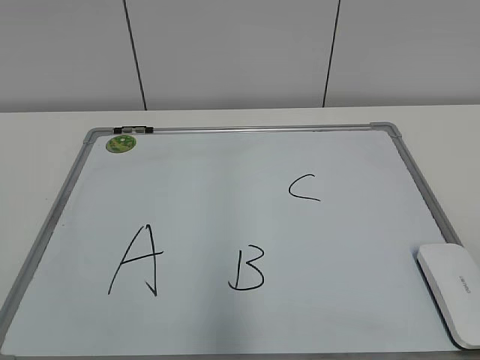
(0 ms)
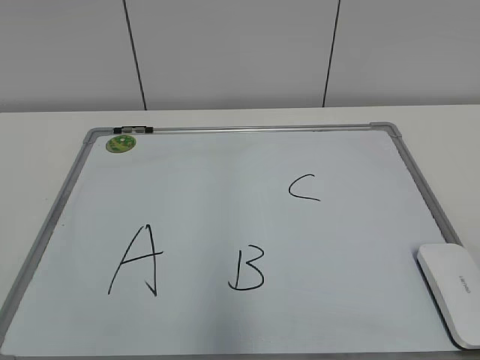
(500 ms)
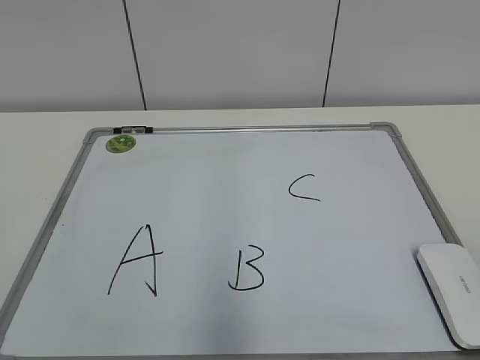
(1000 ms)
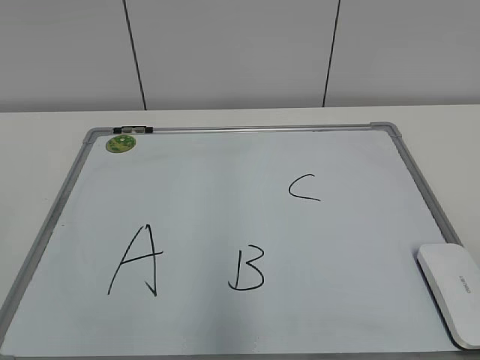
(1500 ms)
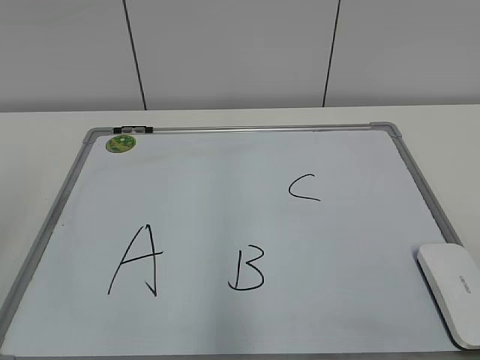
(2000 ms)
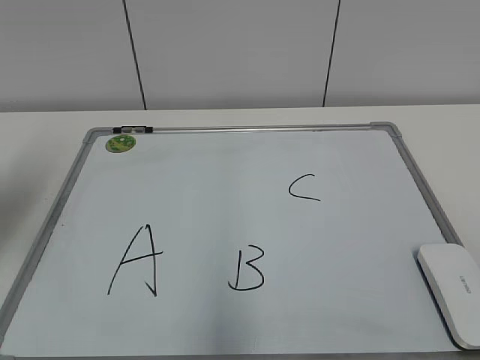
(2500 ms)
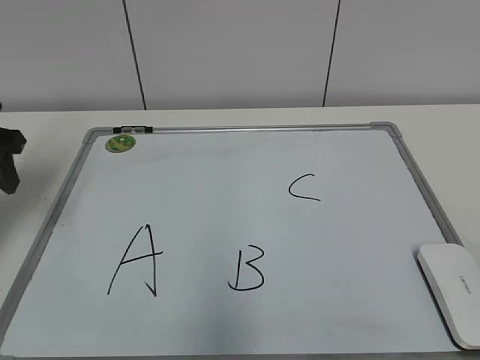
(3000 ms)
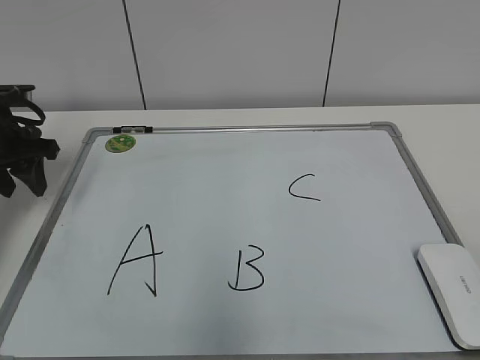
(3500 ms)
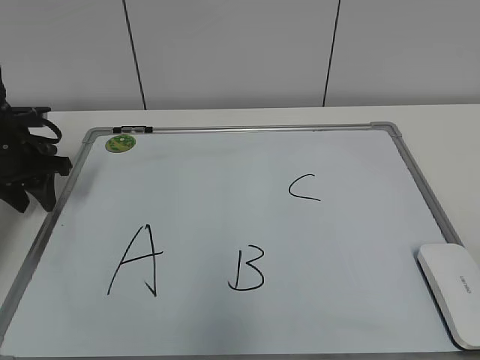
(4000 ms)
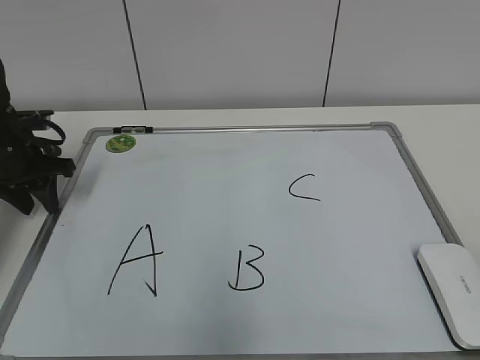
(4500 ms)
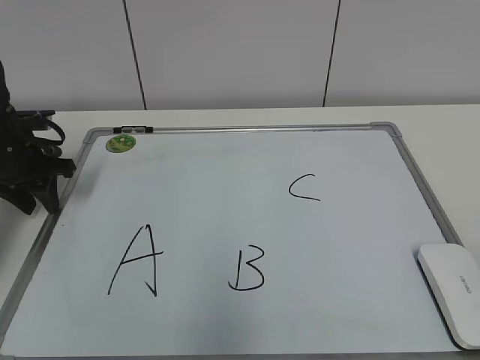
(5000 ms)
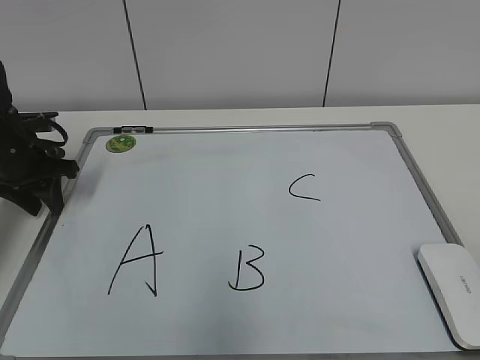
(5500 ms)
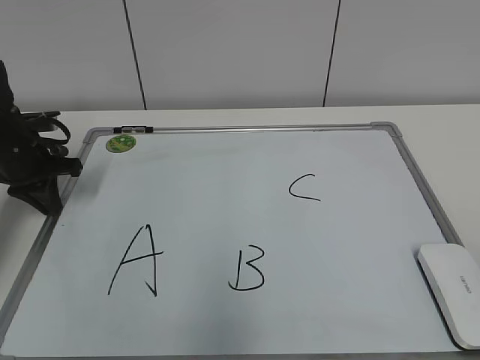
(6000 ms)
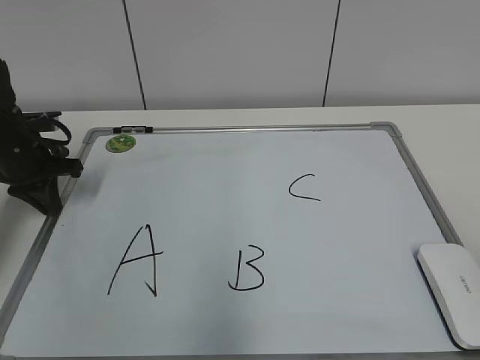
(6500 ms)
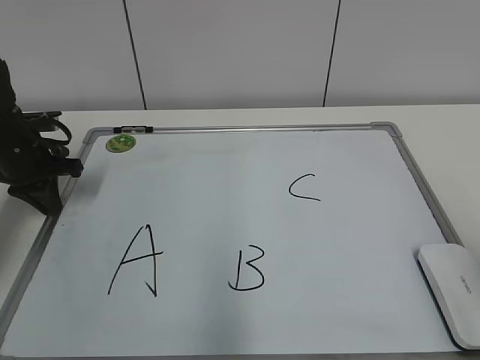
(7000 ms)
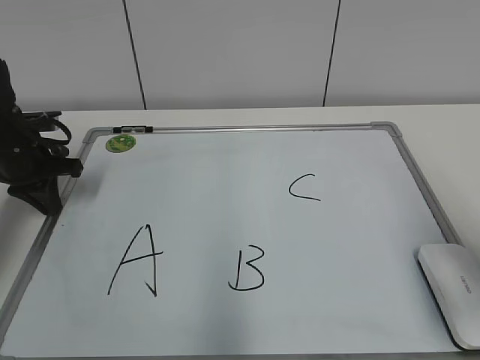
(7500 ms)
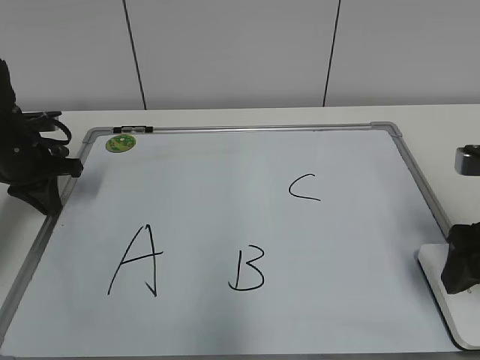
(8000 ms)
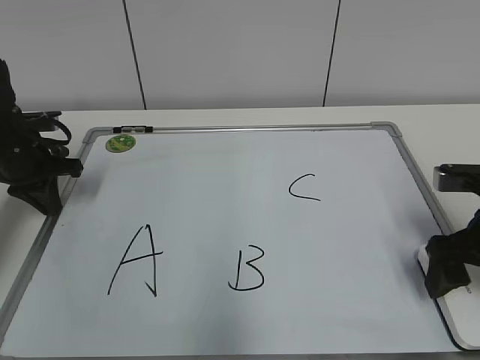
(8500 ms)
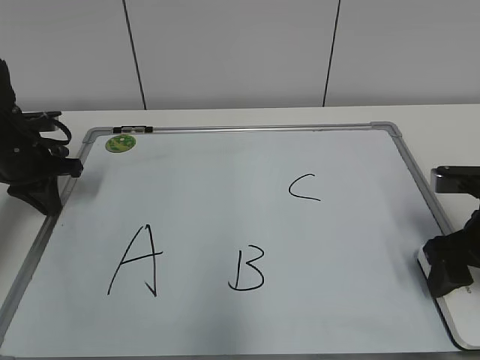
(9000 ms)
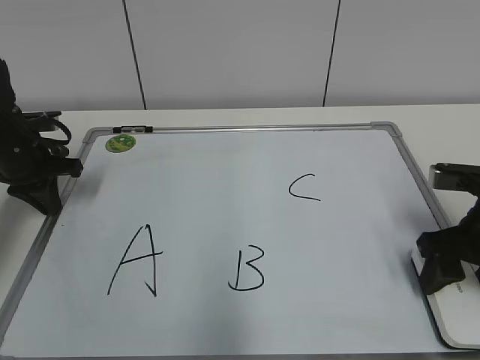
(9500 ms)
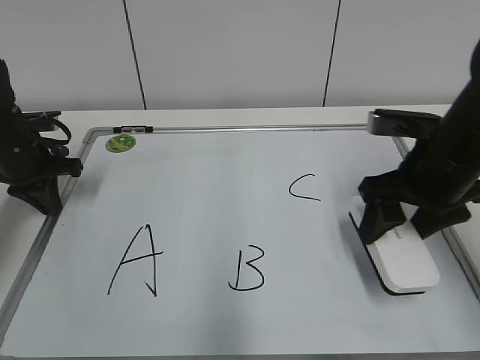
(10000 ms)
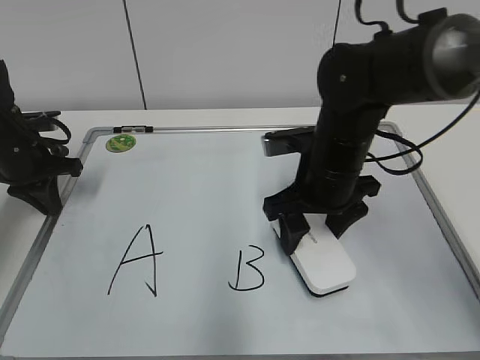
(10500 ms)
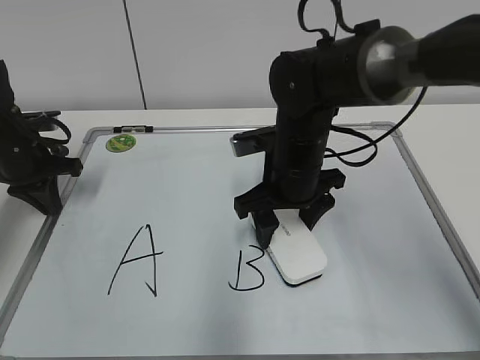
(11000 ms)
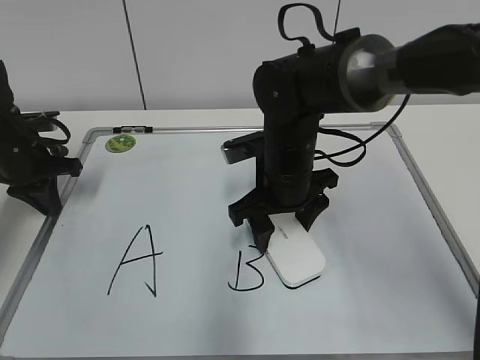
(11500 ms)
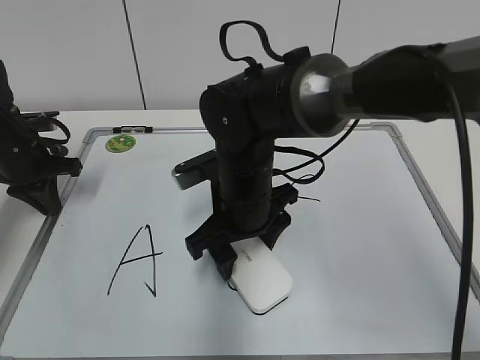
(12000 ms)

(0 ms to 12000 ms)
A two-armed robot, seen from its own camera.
Task of the whole recording: pick up the eraser on the blackboard and erase the letter "B".
Step, 0 ms - 5500 ms: Hold the drawing board steady with your left hand.
Step, 6000 ms - 9000 ms: Grab the eraser with your right hand.
2000 ms - 4000 ms: The left gripper travels forward and downward by some 35 cm.
4000 ms - 6000 ms: The left gripper closes its fingers.
6000 ms - 8000 ms: The right gripper shifts roughly 25 cm forward, and opens its fingers.
8000 ms - 10000 ms: The right gripper travels forward and to the left by roughly 10 cm, and closes.
10000 ms - 12000 ms: The right gripper is displaced to the left by some 20 cm.

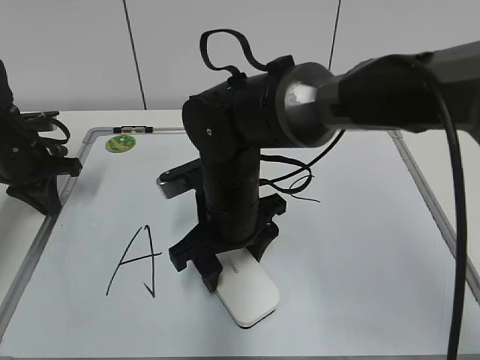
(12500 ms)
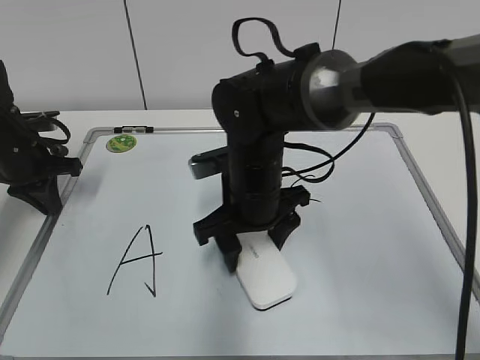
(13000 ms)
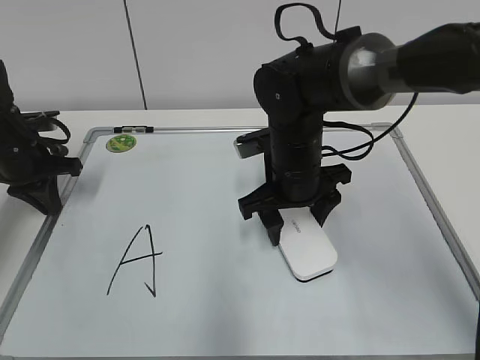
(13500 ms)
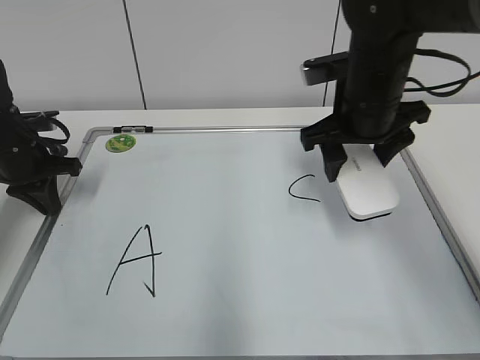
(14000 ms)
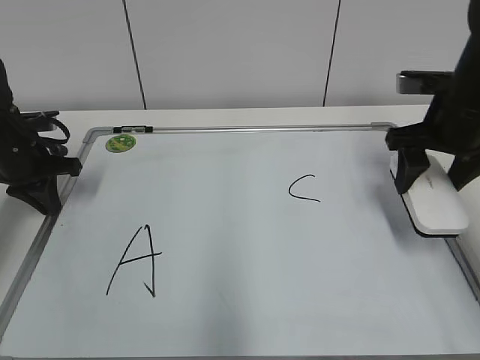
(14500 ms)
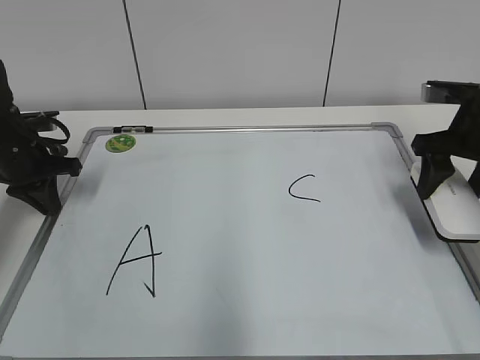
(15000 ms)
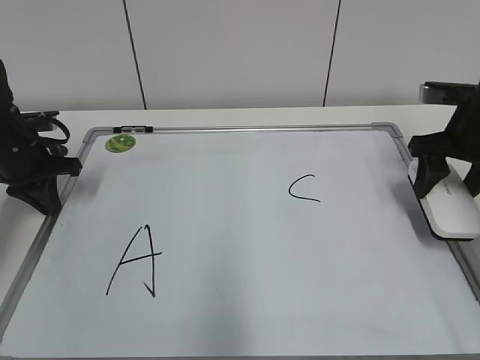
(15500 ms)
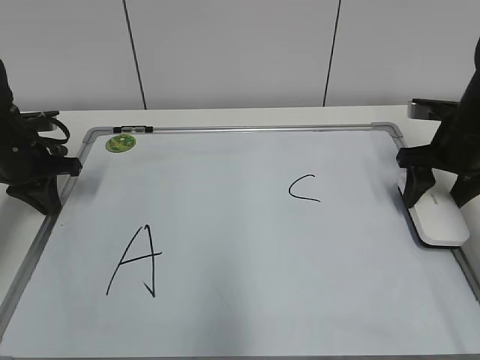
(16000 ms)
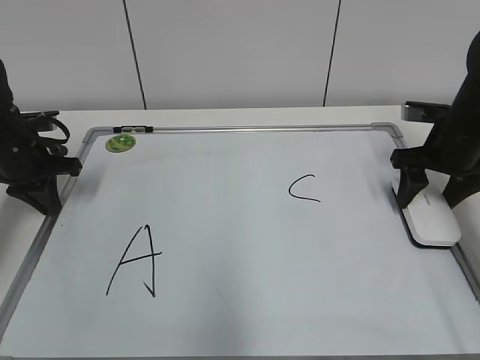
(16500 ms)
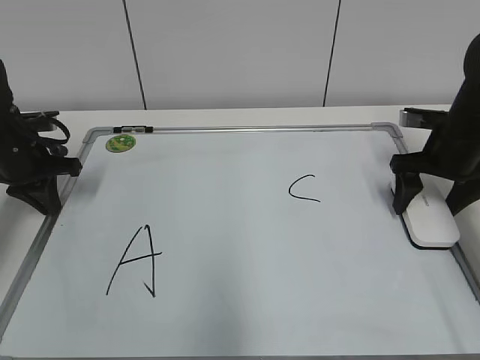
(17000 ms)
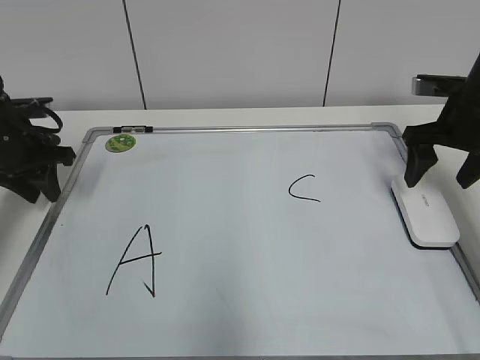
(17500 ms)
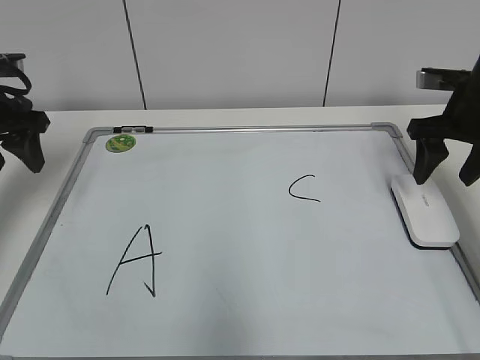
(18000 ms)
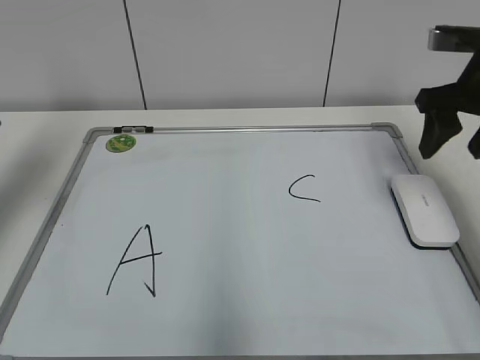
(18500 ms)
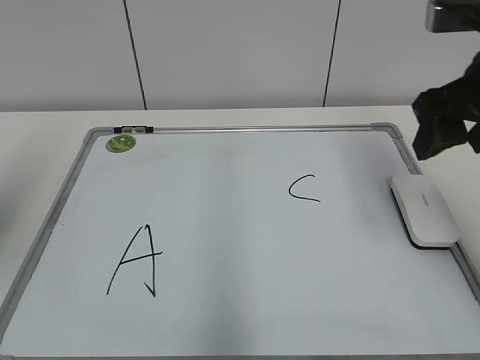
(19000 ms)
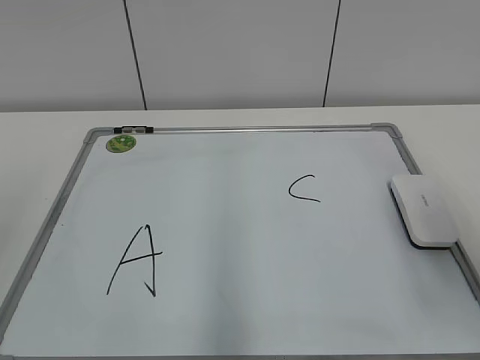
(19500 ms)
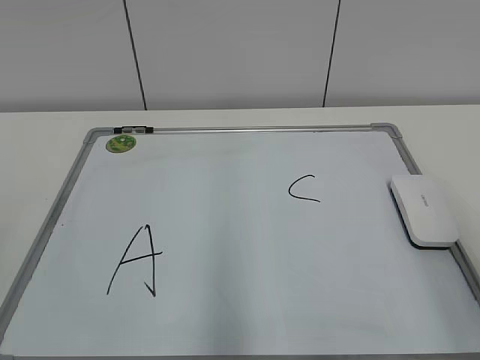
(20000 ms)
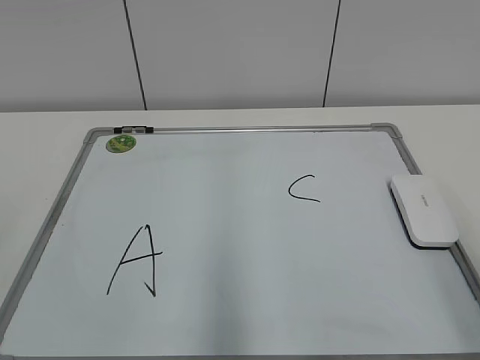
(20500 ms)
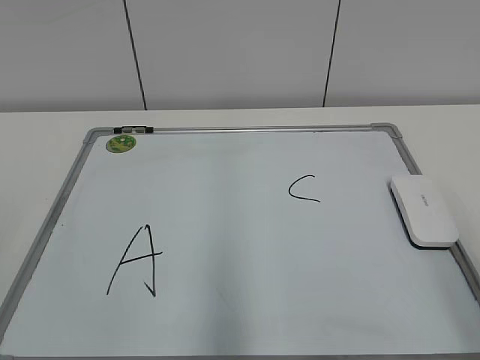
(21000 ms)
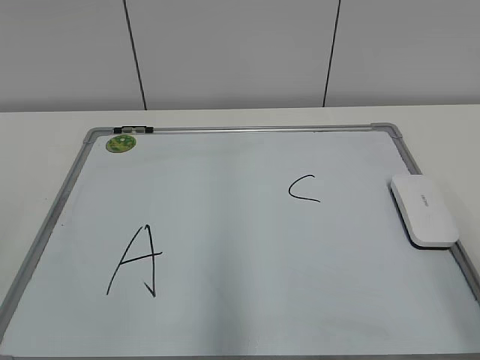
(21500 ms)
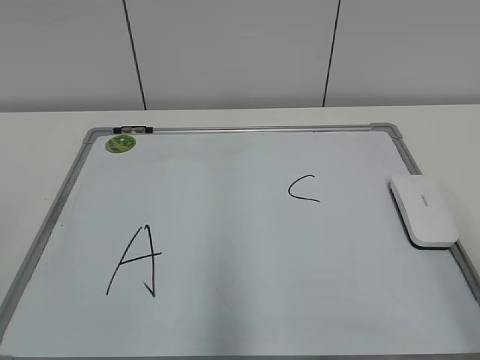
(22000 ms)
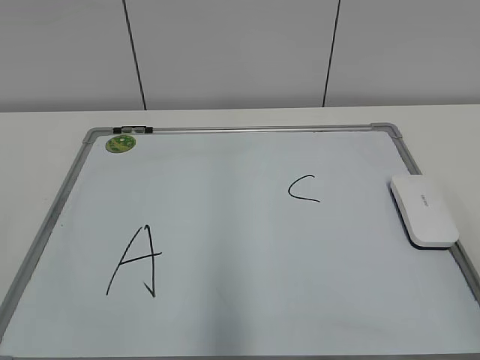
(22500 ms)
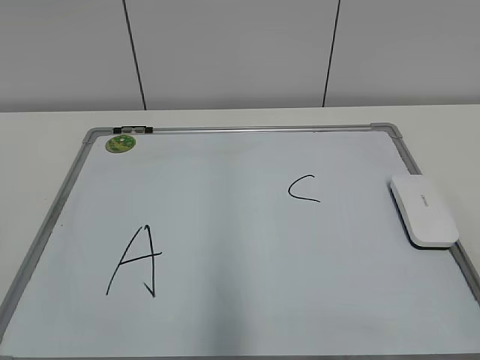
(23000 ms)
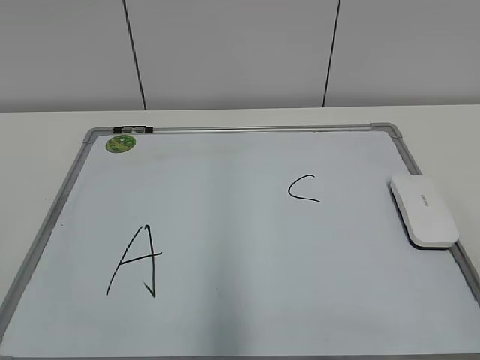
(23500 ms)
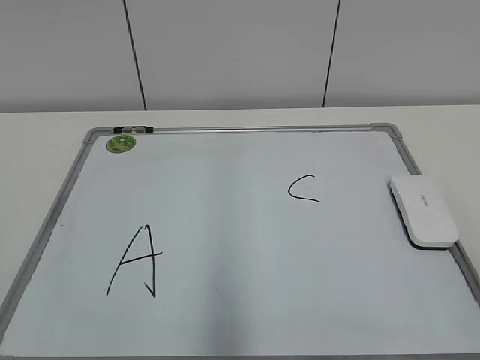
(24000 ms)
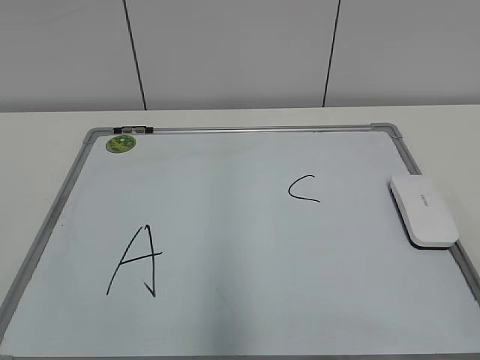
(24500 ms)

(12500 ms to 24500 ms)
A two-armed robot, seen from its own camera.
Task of the whole recording: pick up the eraser on the blackboard and erase the letter "B".
12500 ms - 14500 ms: The right gripper travels to the right by approximately 25 cm.
14500 ms - 16500 ms: The right gripper is displaced downward by about 5 cm.
16500 ms - 18500 ms: The left gripper heads upward and backward, covering some 20 cm, and opens up. Meanwhile the right gripper heads upward, covering approximately 10 cm, and opens, then closes once more.
18500 ms - 20500 ms: Both grippers move backward, roughly 30 cm.

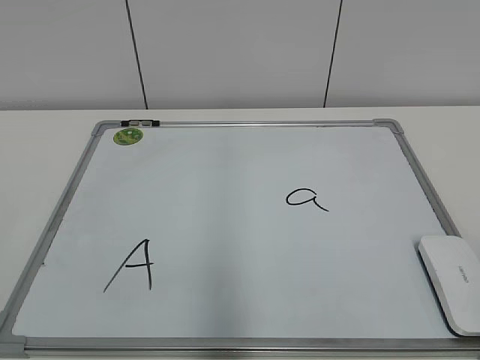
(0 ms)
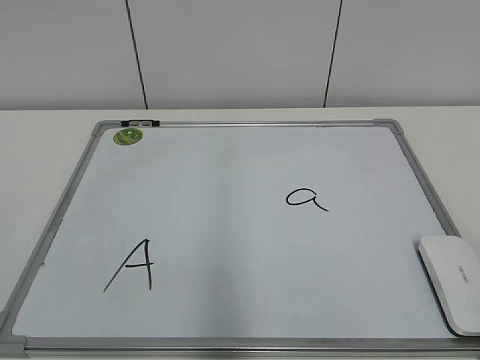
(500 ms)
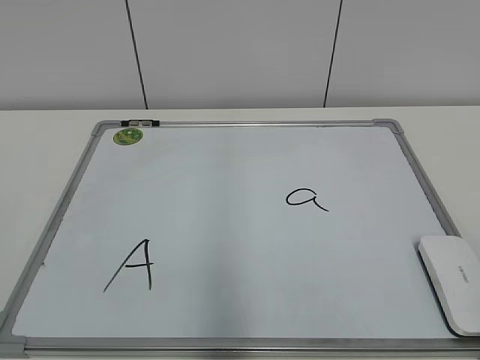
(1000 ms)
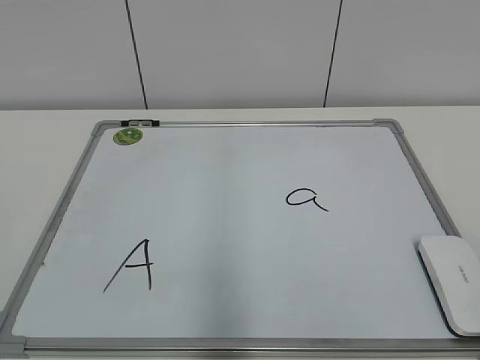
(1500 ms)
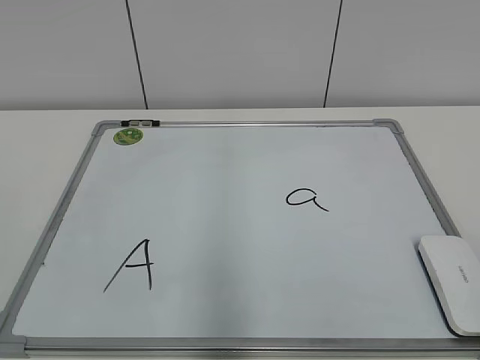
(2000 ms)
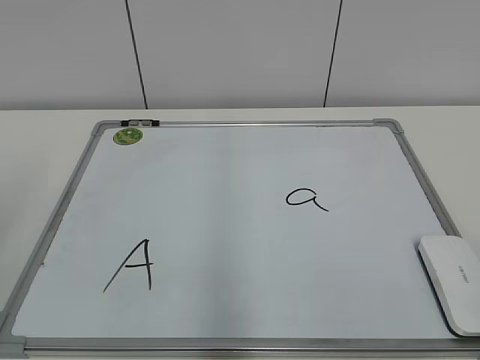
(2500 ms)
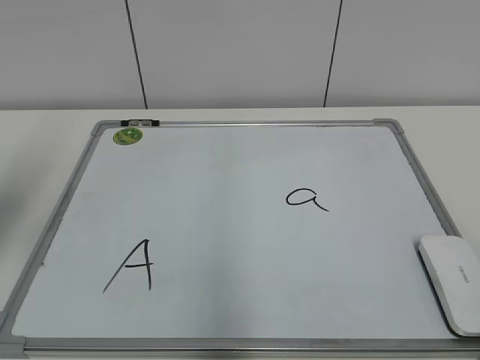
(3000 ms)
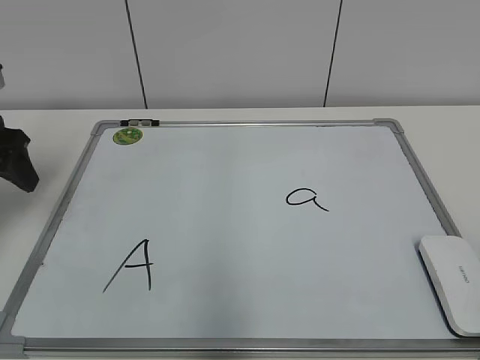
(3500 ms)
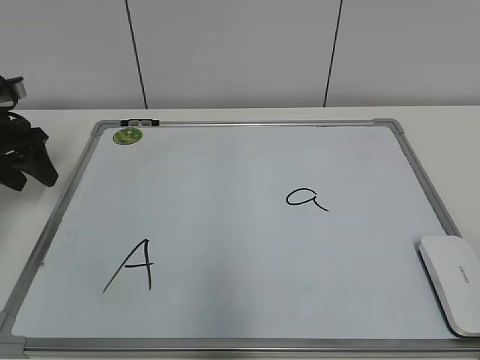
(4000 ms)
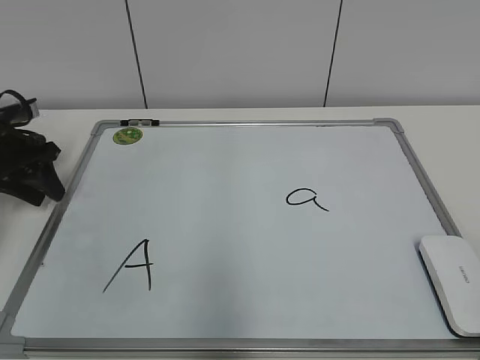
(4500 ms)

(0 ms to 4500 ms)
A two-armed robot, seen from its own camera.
Task of the whole recording: pick up the eraser on the blackboard and erase the letter "a".
2000 ms - 4500 ms: The left gripper heads forward, covering about 40 cm, and closes its fingers.
